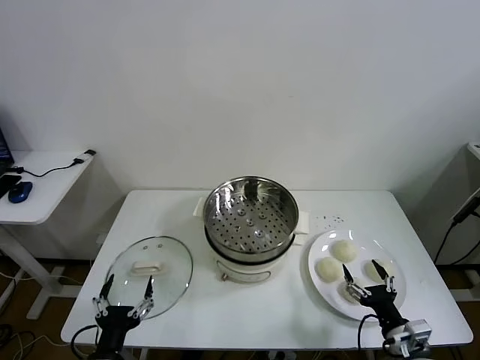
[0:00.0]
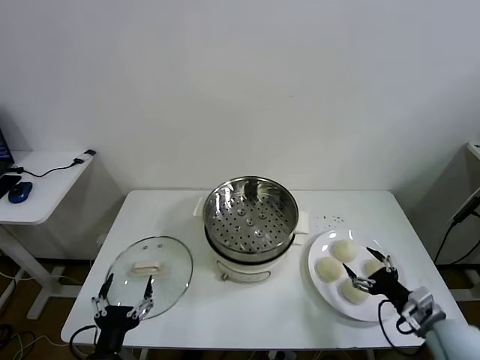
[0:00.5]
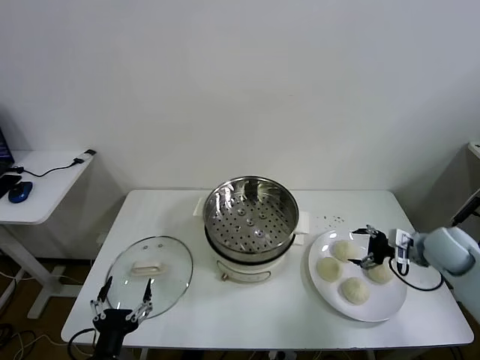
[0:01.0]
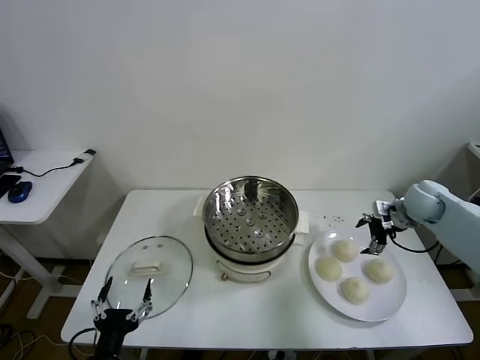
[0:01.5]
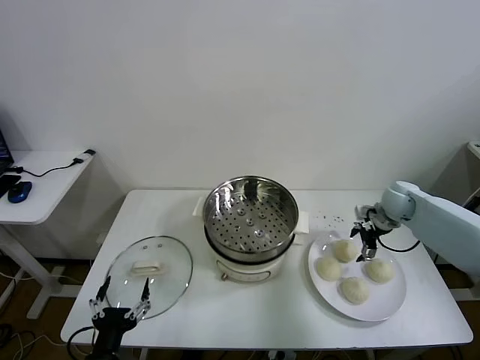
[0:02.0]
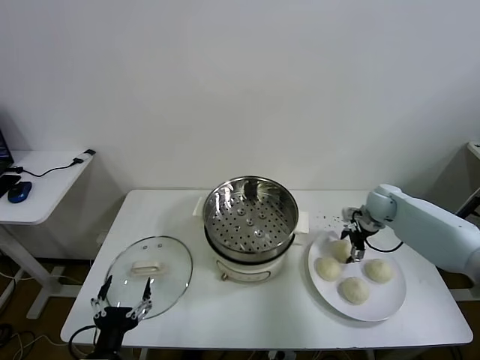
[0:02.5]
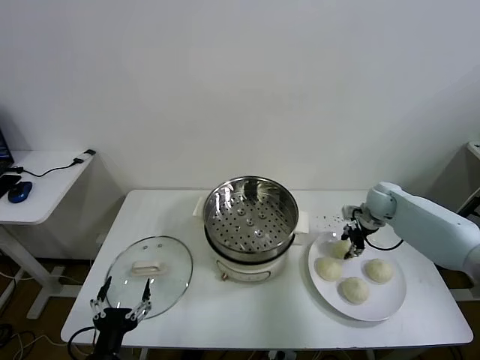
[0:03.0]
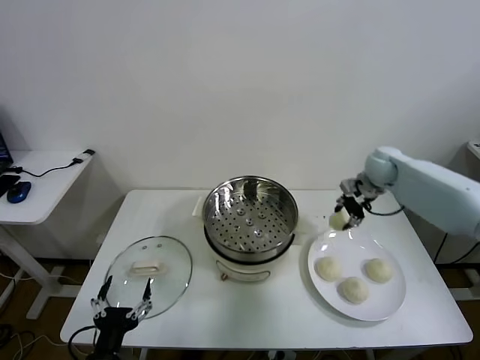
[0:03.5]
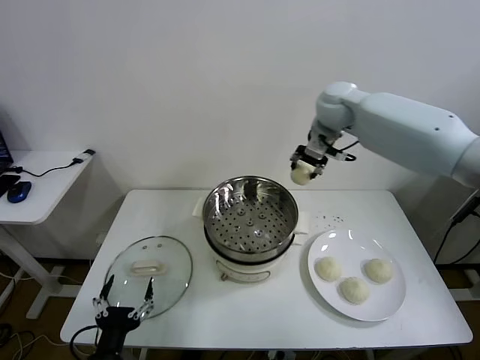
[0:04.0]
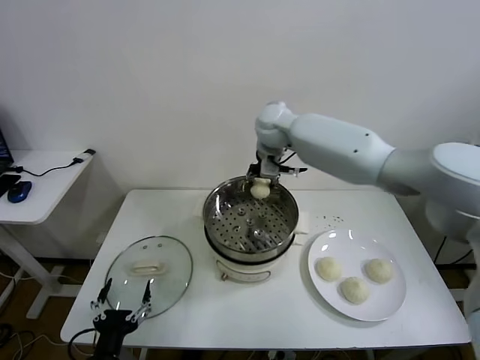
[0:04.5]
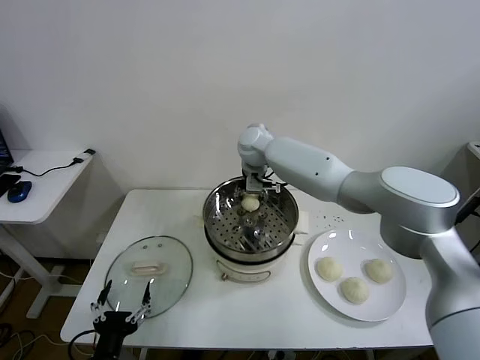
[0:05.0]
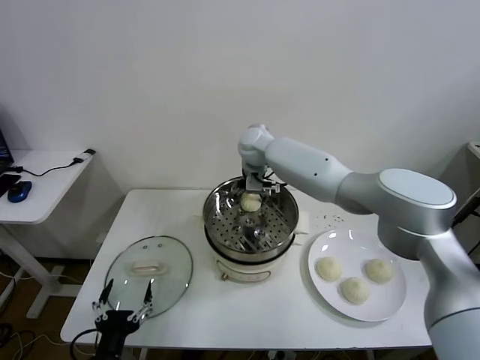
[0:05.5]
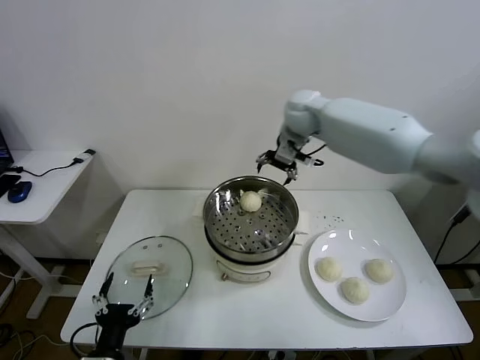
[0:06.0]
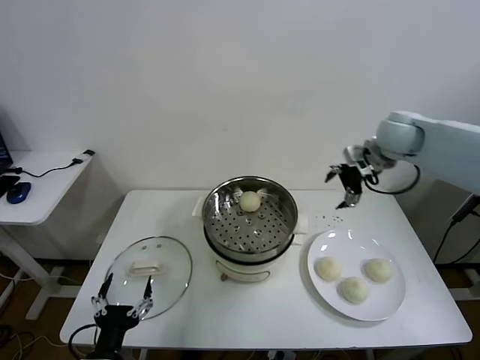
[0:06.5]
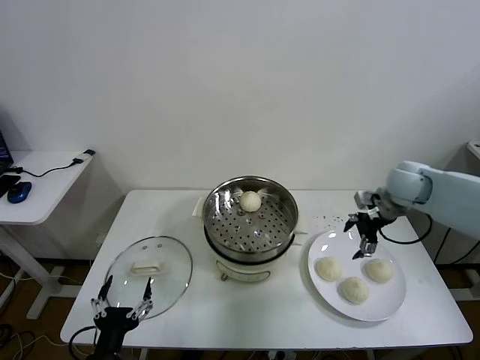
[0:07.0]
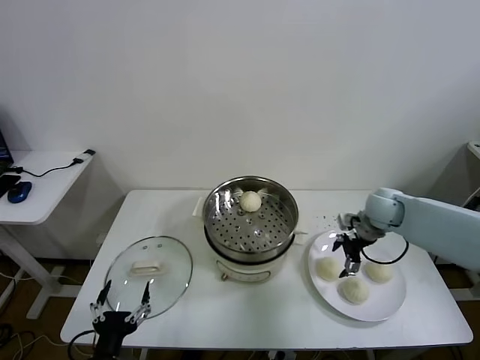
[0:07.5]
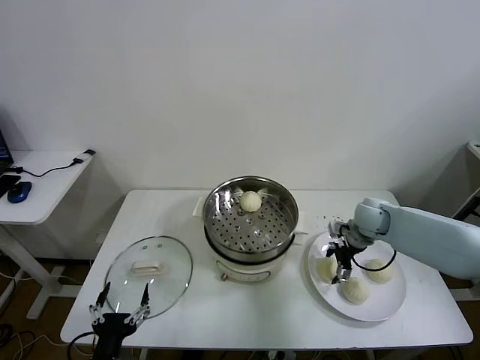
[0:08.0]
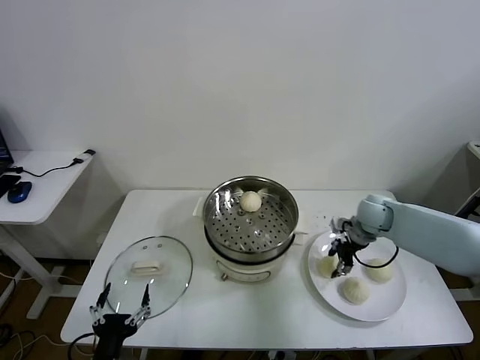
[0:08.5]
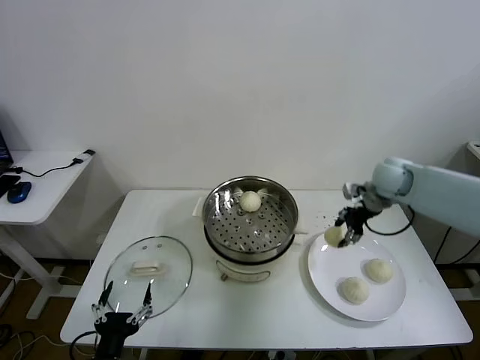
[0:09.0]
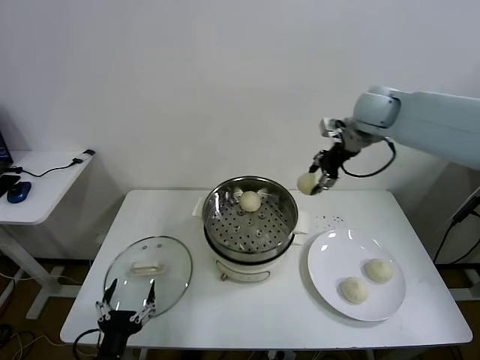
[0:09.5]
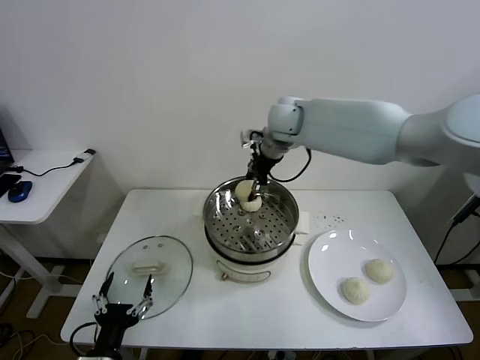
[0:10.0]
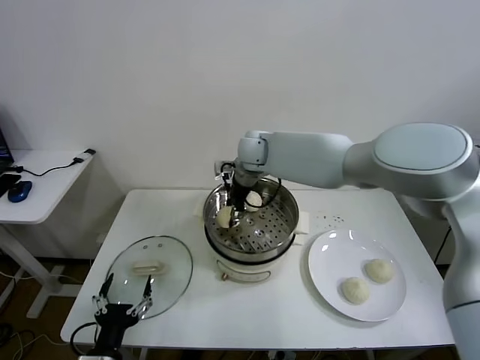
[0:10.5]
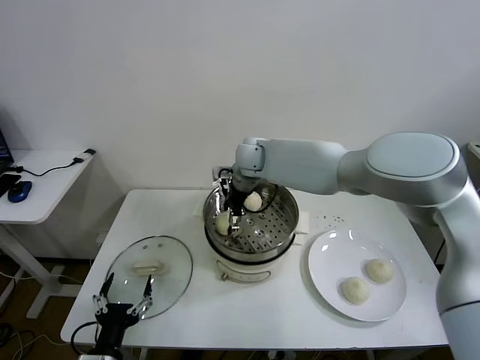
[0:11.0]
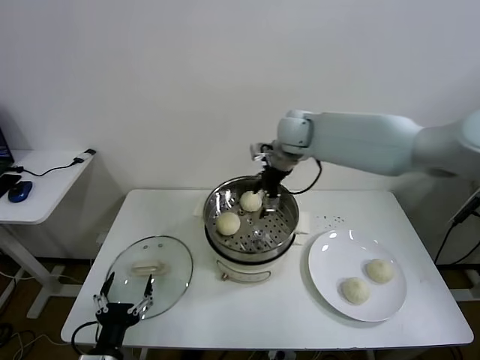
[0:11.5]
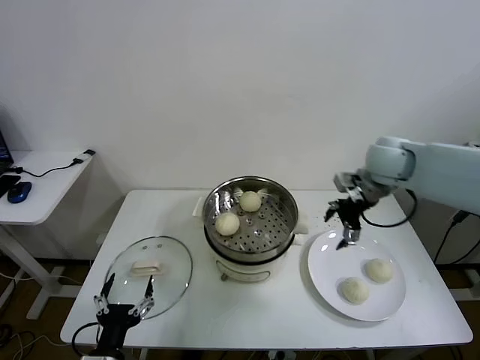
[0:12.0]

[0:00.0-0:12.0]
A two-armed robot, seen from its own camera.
Task of the whole recording: take steamed baozi put them in steamer.
Step, 0:00.0 to 0:02.5: Grasp the baozi in the plate with right gripper.
Step, 0:03.0 to 0:05.5: Place the baozi on the steamer with right gripper.
Step, 0:06.0 to 0:08.0: Grasp the baozi in the plate with right gripper.
Step, 0:08.5 to 0:11.0: Place the baozi on the steamer with right gripper.
0:02.0 to 0:04.0: The right gripper shifts some 35 cm upward and to the left, and closes up.
0:04.0 to 0:06.0: The right gripper reaches roughly 15 cm to the left, then returns, and opens.
0:06.0 to 0:08.0: The right gripper goes roughly 30 cm downward and to the right.
0:08.0 to 0:10.0: The right gripper goes approximately 35 cm to the left and upward, and closes its fingers.
0:10.0 to 0:12.0: The right gripper is displaced to the right and backward by about 25 cm, and opens its fingers.

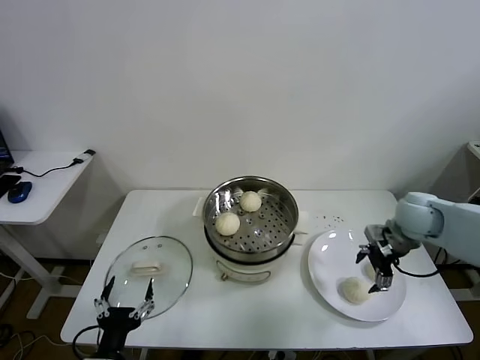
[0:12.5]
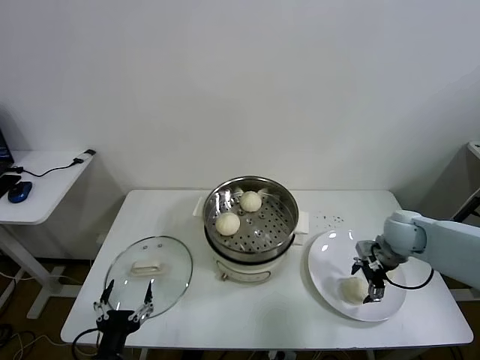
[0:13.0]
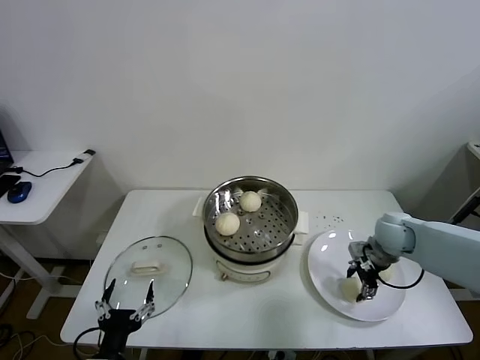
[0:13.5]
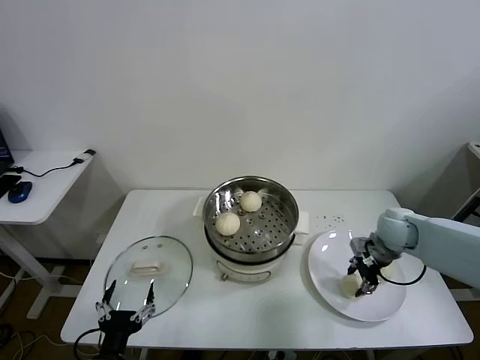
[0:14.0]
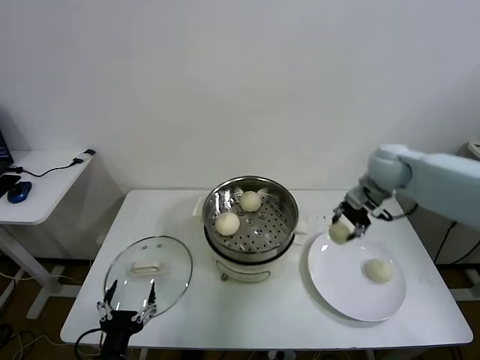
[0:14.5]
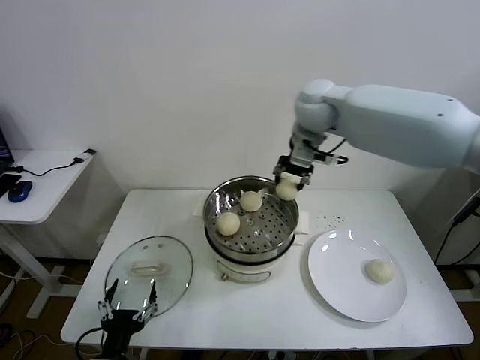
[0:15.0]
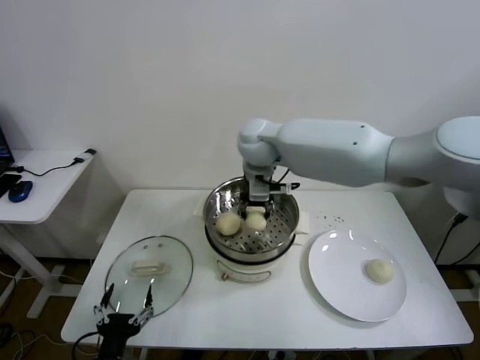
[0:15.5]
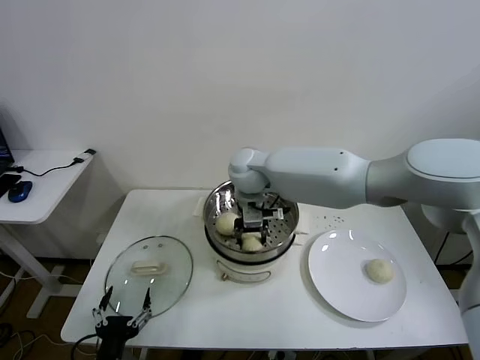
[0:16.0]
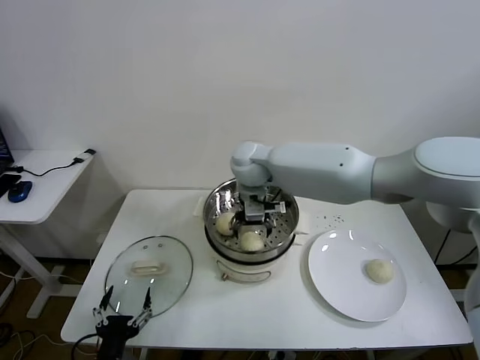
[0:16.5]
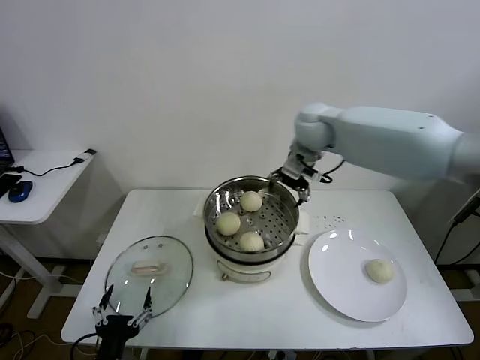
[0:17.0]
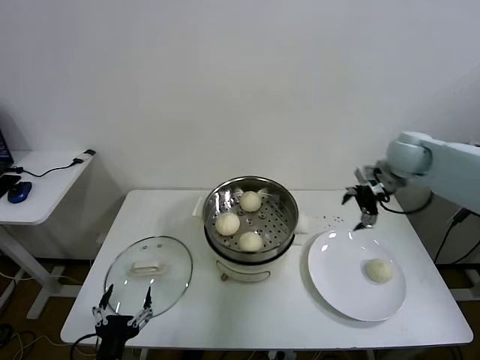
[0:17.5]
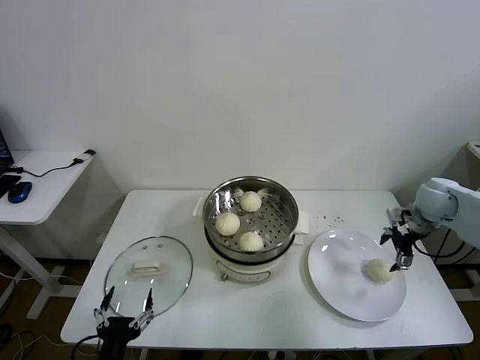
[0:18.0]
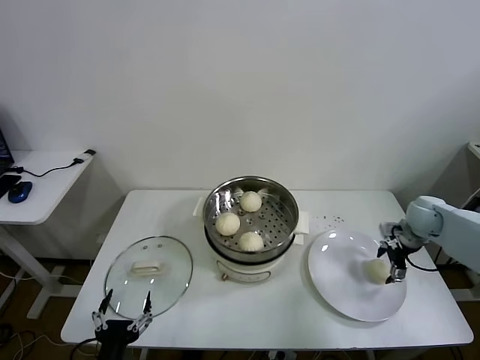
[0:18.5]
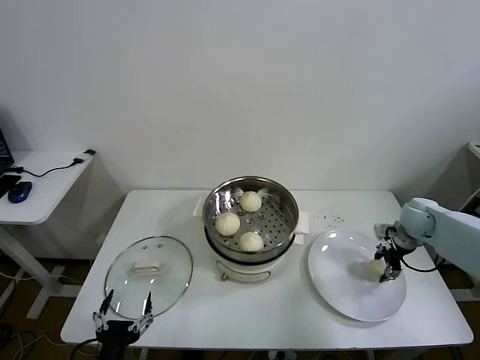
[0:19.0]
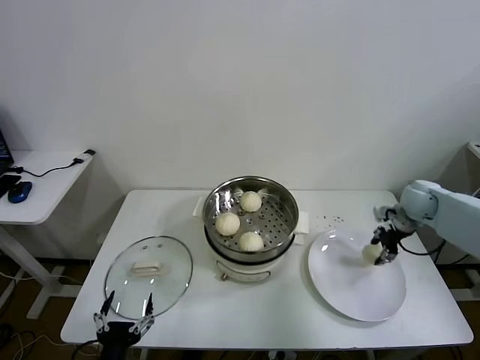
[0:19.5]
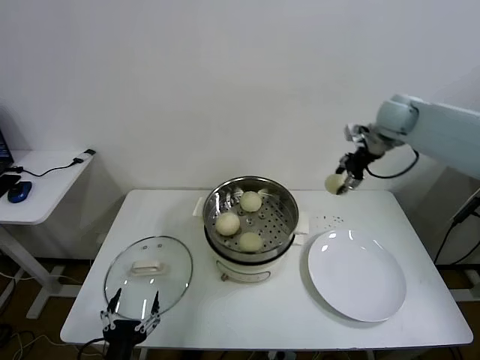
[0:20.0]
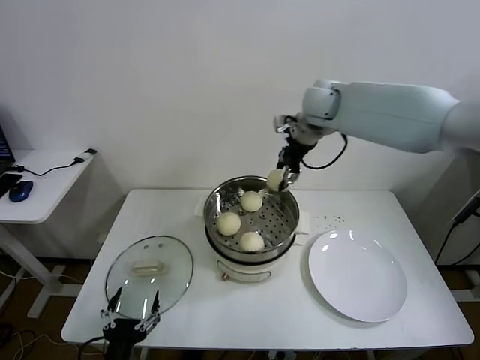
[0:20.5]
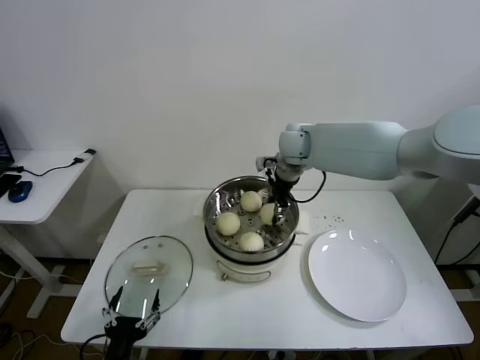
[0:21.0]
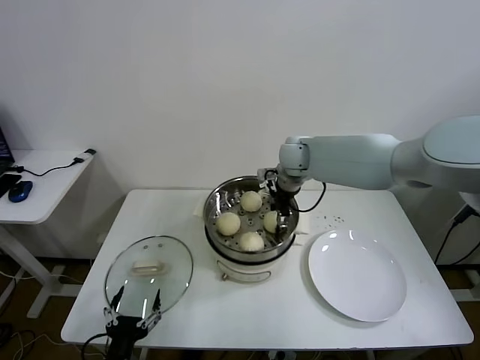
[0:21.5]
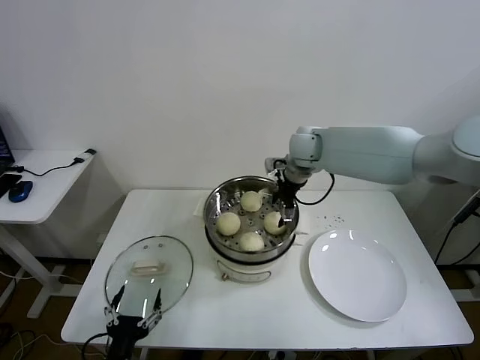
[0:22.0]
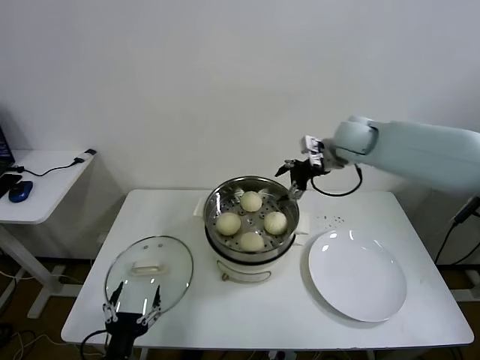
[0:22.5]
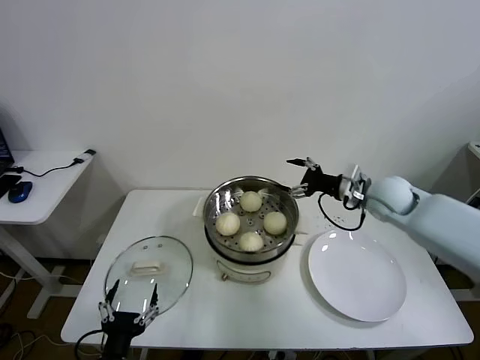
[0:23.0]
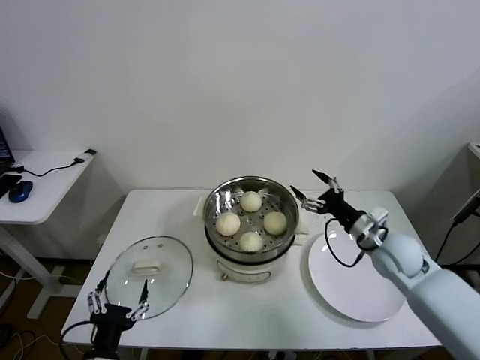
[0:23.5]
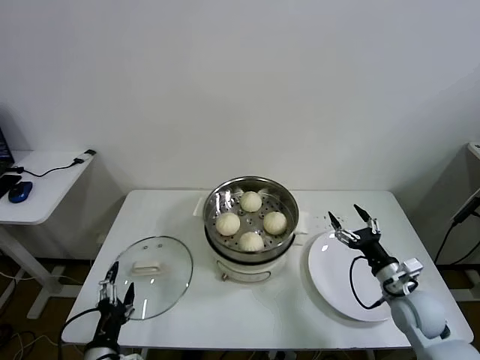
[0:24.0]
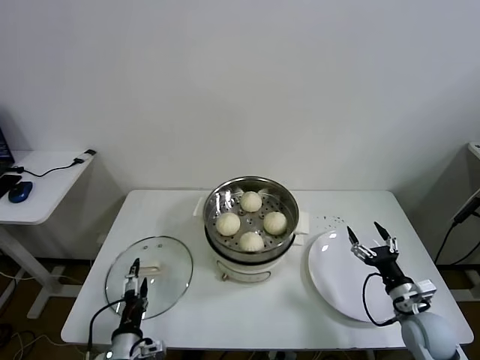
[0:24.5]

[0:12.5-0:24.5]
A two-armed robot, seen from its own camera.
Task of the whole recording: take steamed baozi put them in steamer.
Step, 0:14.0 to 0:16.5: Place the baozi on the steamer with right gripper.
Step, 0:17.0 to 0:18.5: Grasp the baozi in the plate with right gripper.
Step, 0:19.5 to 0:21.5: Place the baozi on the steamer with right gripper.
0:12.5 to 0:14.5: The right gripper moves upward, forward and to the left, approximately 15 cm, and closes.
0:14.5 to 0:16.5: The right gripper travels to the left by roughly 30 cm, and opens up.
0:16.5 to 0:18.5: The right gripper travels to the right by about 40 cm.
0:18.5 to 0:20.5: The right gripper travels to the left, upward and forward by about 40 cm, and closes its fingers.
0:20.5 to 0:22.5: The right gripper travels to the right and downward by some 10 cm, and opens.
0:22.5 to 0:24.5: The right gripper goes roughly 40 cm downward, backward and to the right. Meanwhile the left gripper travels forward by approximately 5 cm.

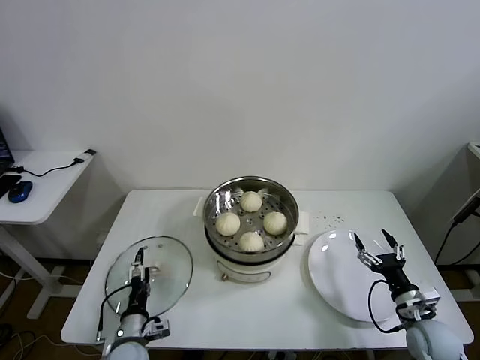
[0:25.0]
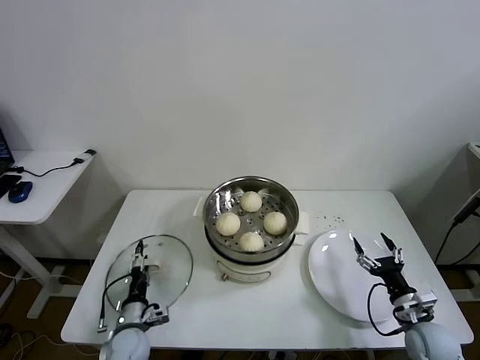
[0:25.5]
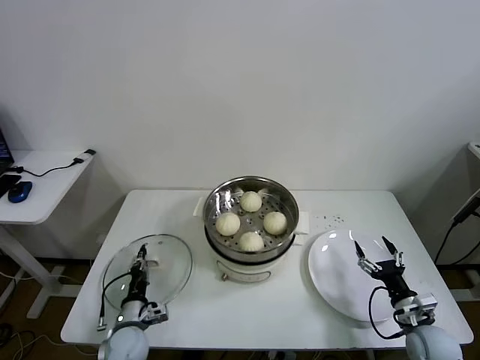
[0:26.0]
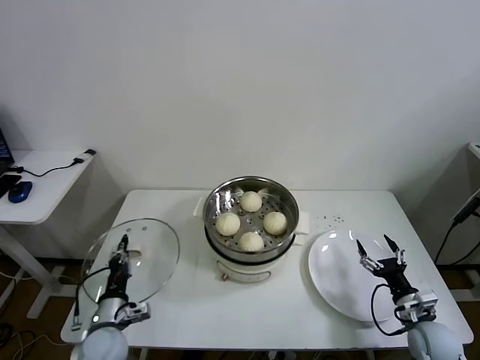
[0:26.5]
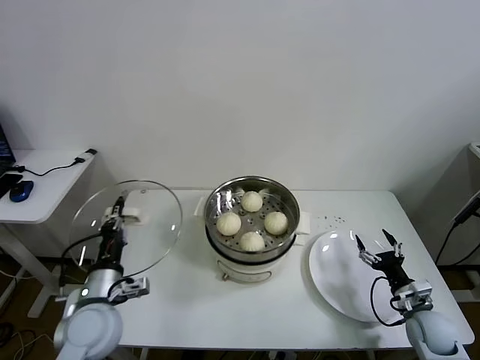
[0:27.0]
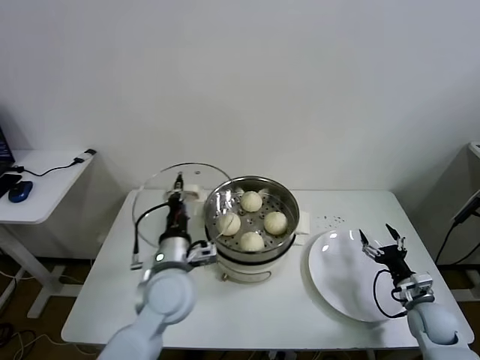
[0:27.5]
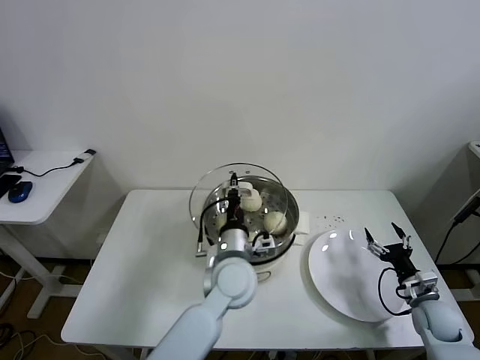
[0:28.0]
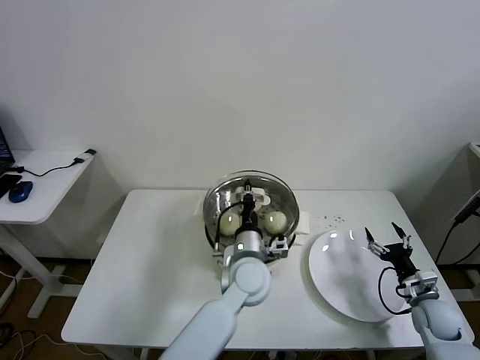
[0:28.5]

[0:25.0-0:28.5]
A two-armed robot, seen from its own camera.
Task of the whole recording: take steamed baozi put them in steamer.
0:25.0 to 0:27.0: The left gripper goes about 15 cm upward, and closes up.
0:27.0 to 0:28.5: The left gripper heads to the right, covering approximately 30 cm.
